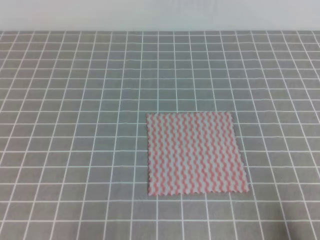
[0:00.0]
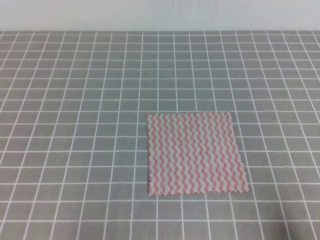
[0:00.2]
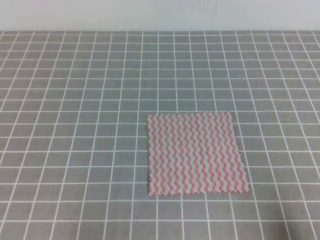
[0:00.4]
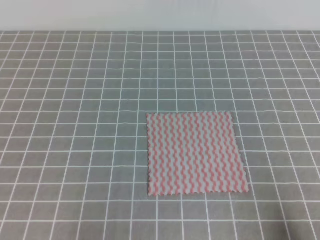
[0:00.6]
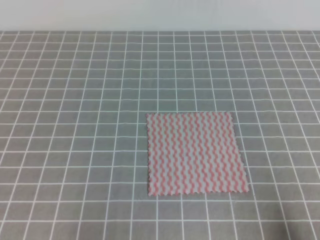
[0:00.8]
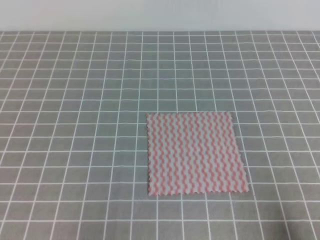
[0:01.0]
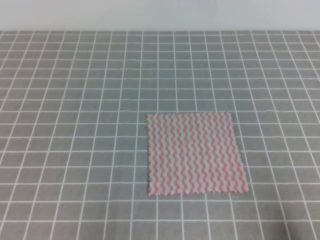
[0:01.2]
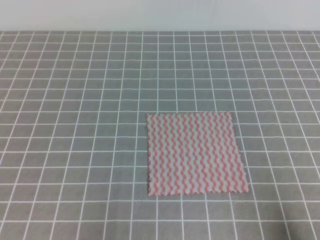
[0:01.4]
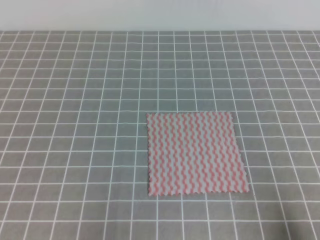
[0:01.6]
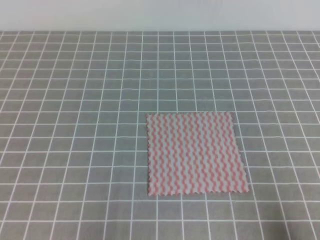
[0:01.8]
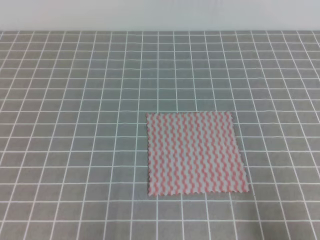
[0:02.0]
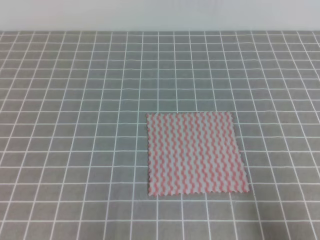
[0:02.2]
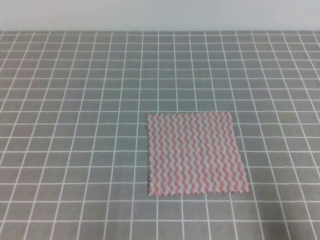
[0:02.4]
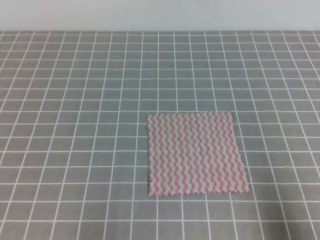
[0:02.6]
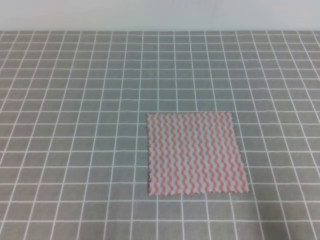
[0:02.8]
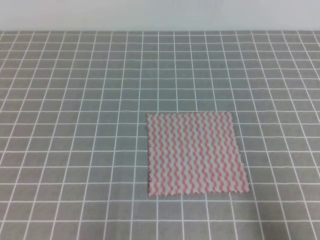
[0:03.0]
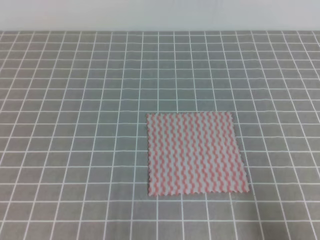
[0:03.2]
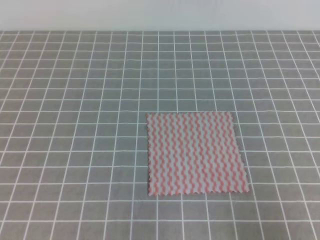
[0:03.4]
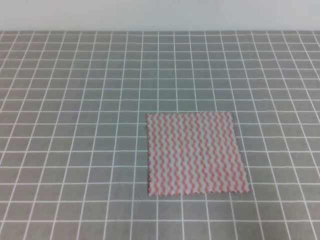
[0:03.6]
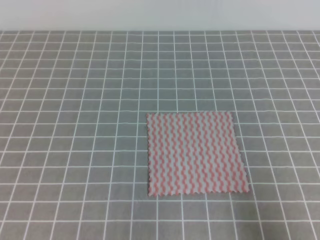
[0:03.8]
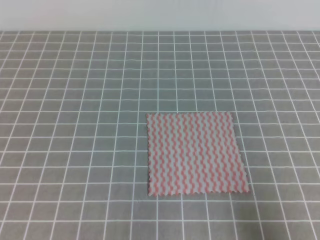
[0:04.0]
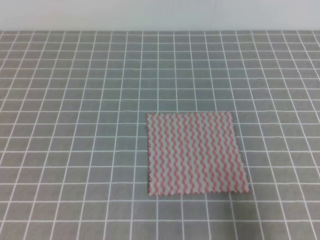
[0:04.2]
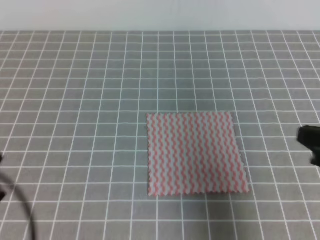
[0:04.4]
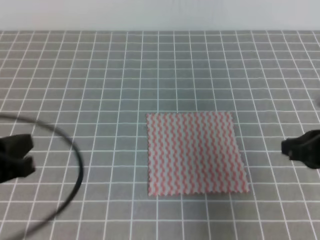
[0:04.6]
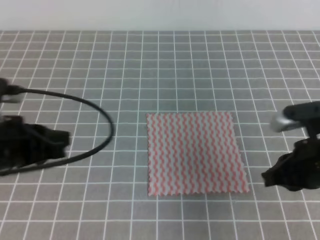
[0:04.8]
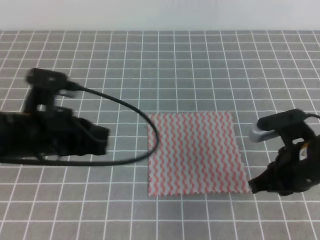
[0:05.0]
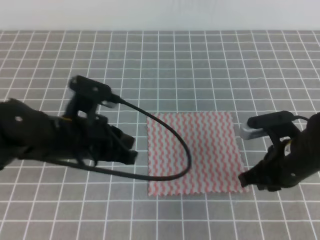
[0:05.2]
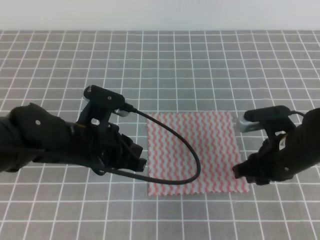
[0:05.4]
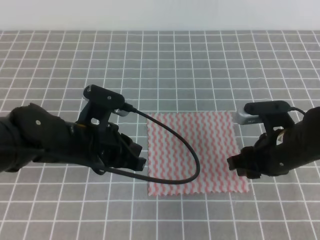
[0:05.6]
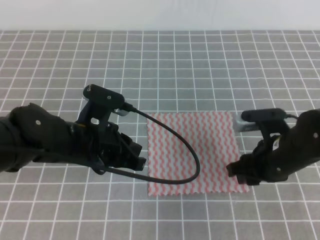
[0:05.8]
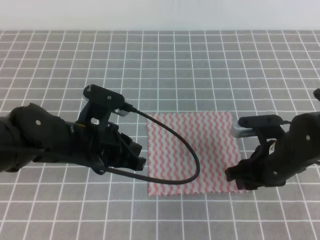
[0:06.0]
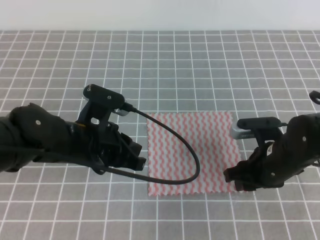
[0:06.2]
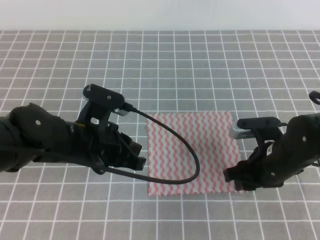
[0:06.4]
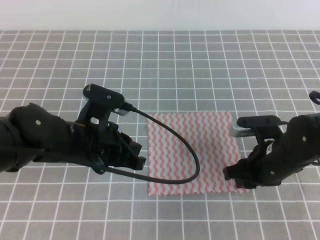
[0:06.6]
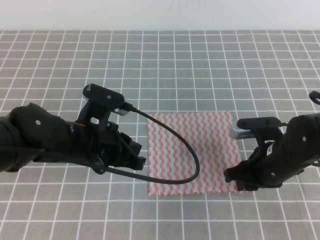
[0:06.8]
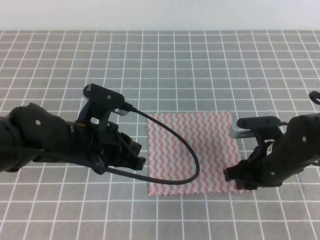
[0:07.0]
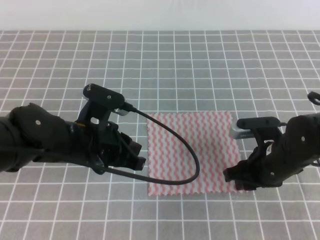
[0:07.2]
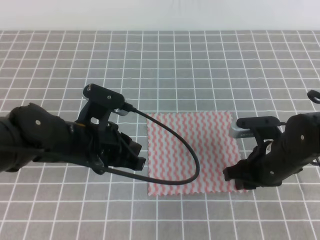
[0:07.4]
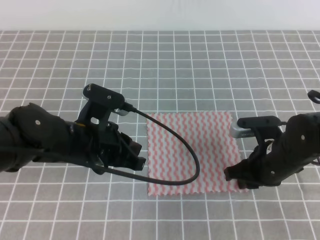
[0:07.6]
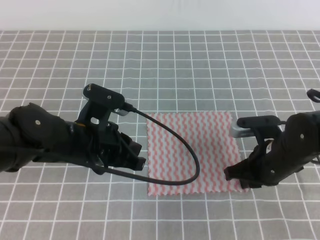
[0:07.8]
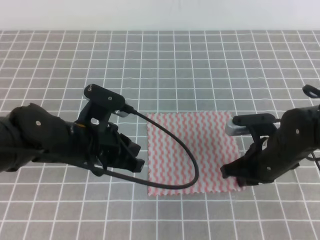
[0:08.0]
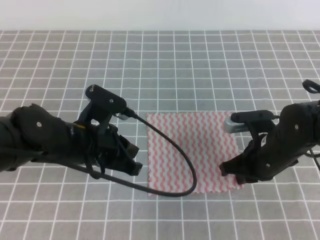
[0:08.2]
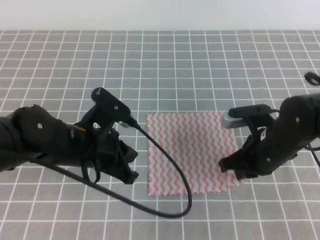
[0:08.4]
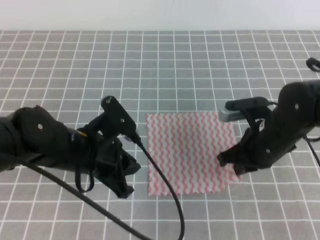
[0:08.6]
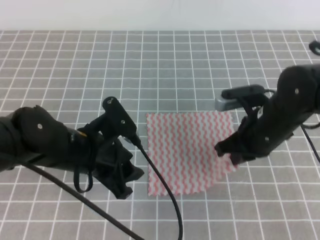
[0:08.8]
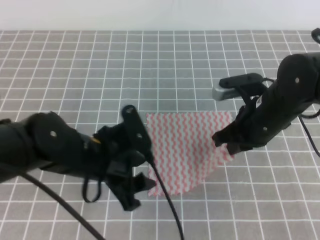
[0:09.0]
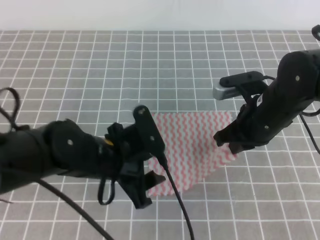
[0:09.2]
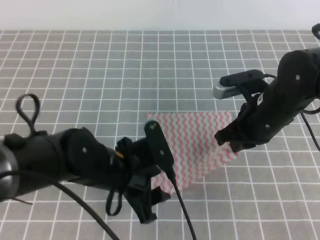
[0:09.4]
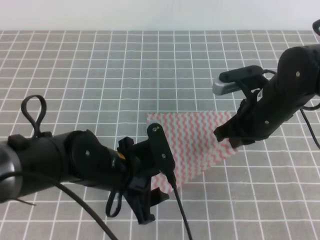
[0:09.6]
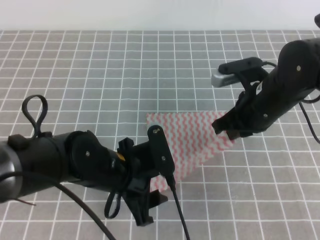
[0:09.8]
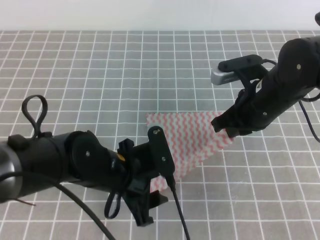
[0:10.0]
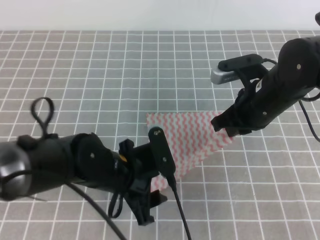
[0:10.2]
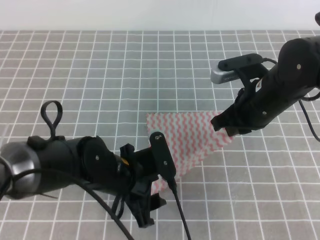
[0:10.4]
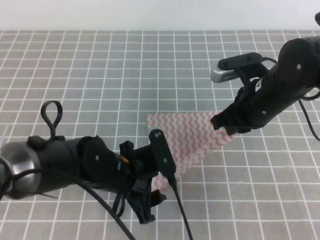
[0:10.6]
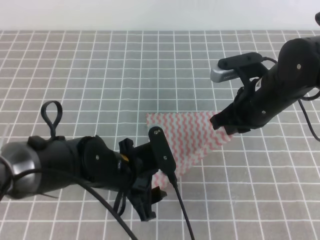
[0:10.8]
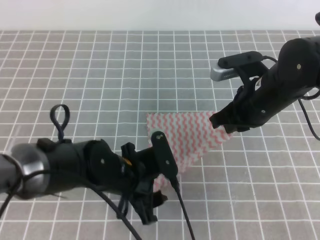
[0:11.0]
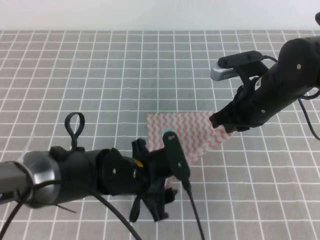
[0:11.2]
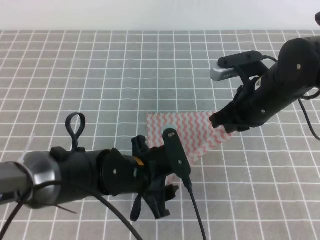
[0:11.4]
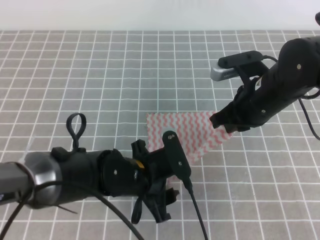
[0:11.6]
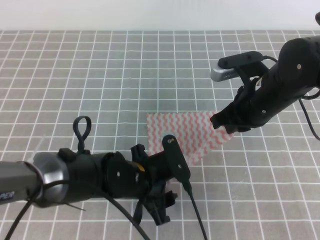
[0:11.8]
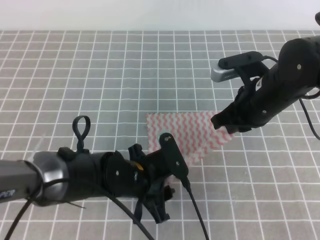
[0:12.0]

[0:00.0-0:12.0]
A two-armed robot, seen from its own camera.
0:03.0 to 0:04.4: The left gripper is displaced upward by roughly 10 cm, while the right gripper moves forward and upward, some 15 cm.
0:04.4 to 0:06.0: The left gripper shifts roughly 20 cm forward and to the right. Meanwhile the right gripper heads forward, downward and to the left, covering roughly 15 cm, and opens.
0:06.0 to 0:07.6: The right gripper closes up.
0:07.6 to 0:09.0: The right gripper goes some 5 cm upward, and closes up. Meanwhile the left gripper opens.
0:09.0 to 0:10.4: The left gripper shifts by approximately 5 cm.
0:10.4 to 0:12.0: The left gripper closes its fingers.

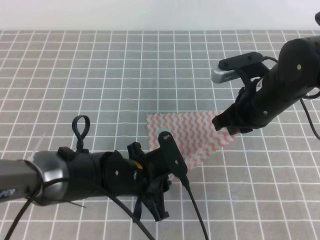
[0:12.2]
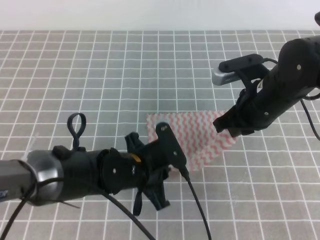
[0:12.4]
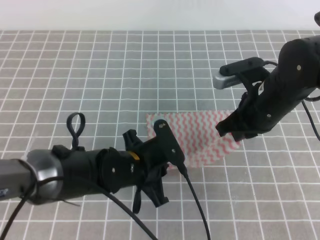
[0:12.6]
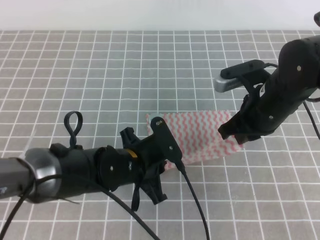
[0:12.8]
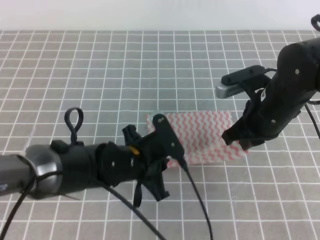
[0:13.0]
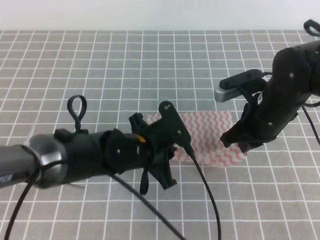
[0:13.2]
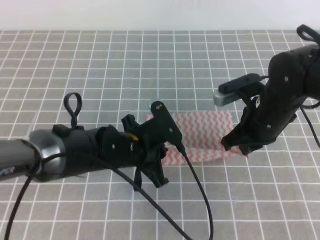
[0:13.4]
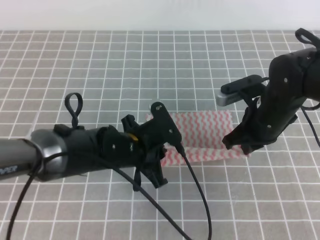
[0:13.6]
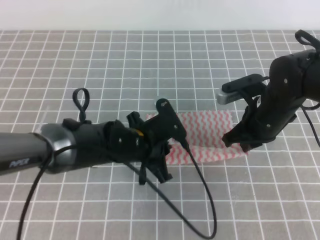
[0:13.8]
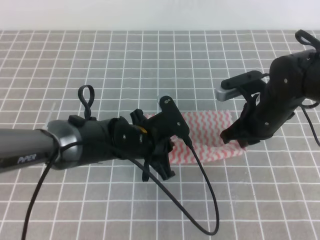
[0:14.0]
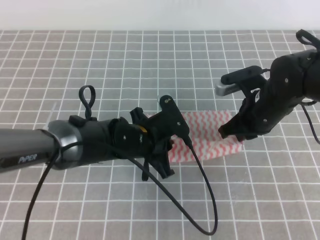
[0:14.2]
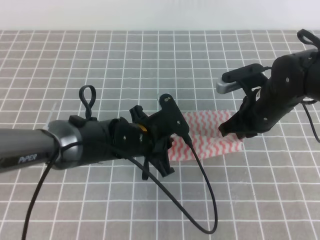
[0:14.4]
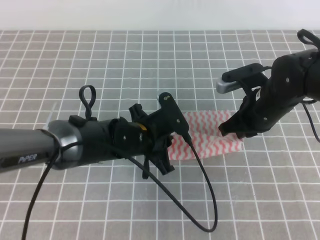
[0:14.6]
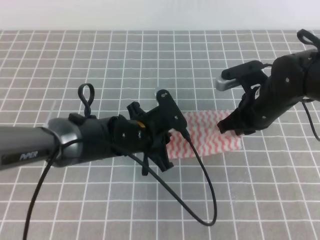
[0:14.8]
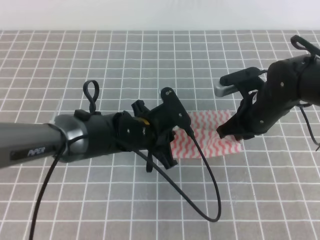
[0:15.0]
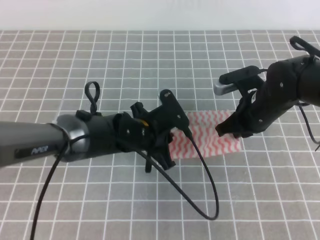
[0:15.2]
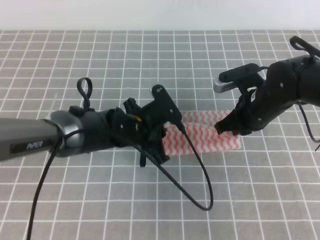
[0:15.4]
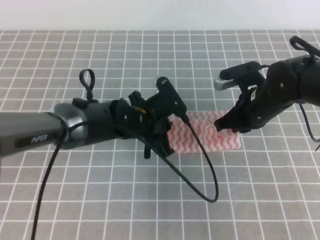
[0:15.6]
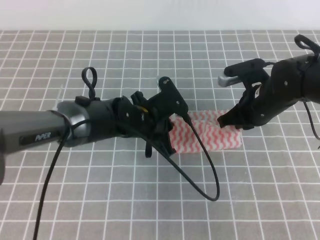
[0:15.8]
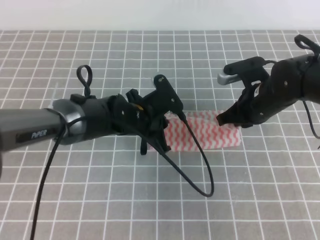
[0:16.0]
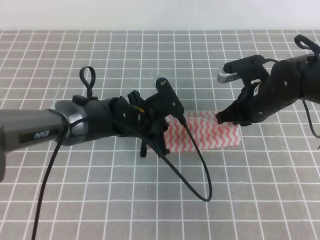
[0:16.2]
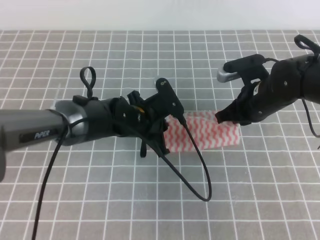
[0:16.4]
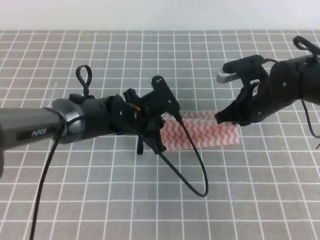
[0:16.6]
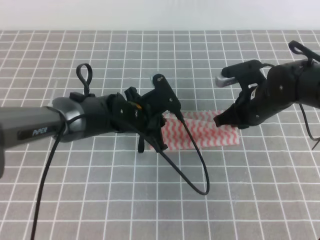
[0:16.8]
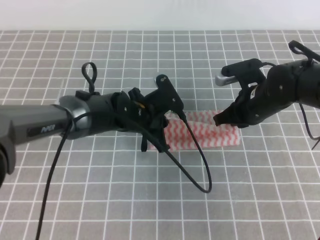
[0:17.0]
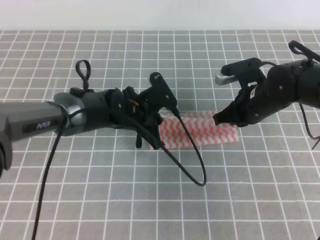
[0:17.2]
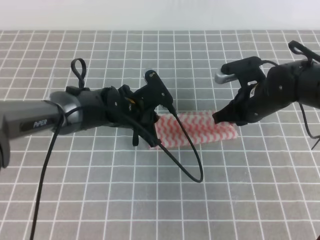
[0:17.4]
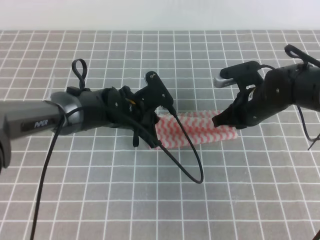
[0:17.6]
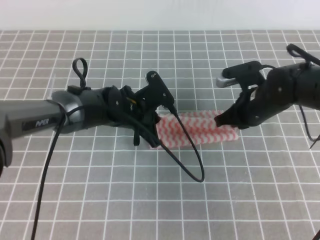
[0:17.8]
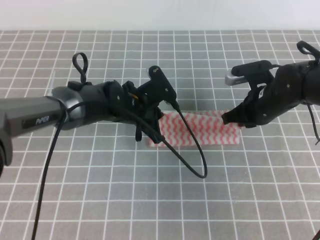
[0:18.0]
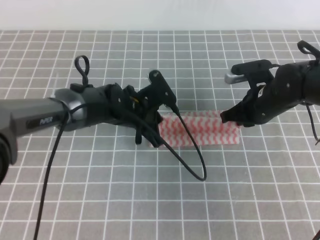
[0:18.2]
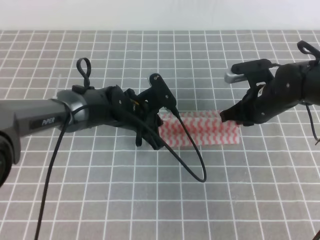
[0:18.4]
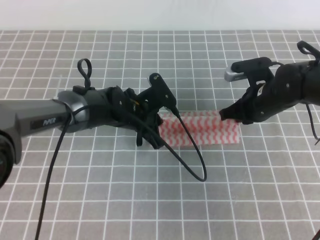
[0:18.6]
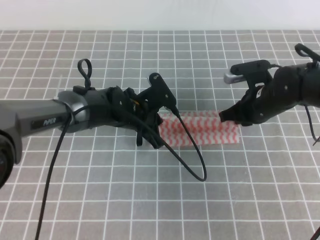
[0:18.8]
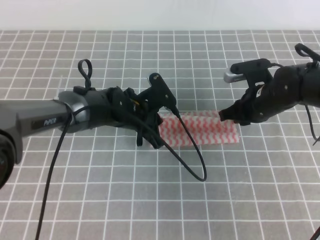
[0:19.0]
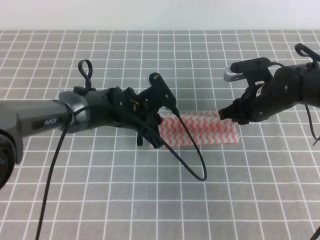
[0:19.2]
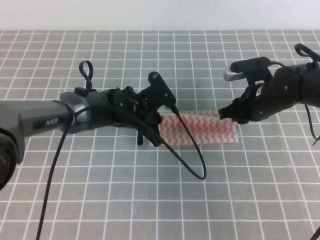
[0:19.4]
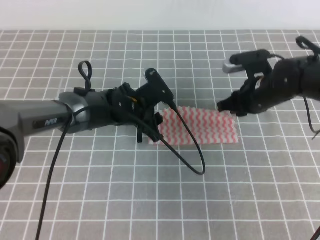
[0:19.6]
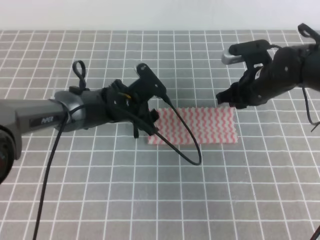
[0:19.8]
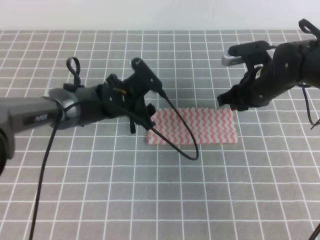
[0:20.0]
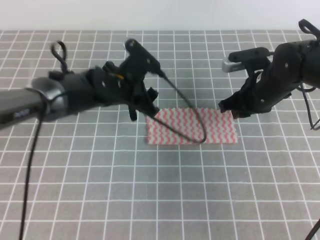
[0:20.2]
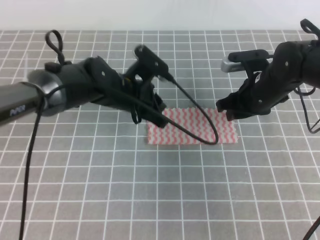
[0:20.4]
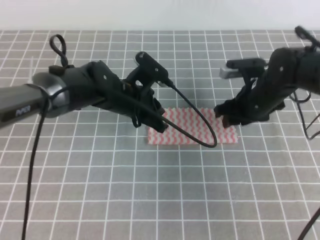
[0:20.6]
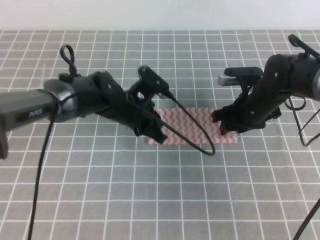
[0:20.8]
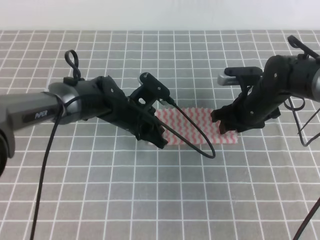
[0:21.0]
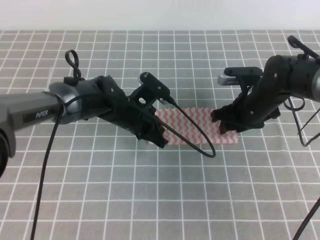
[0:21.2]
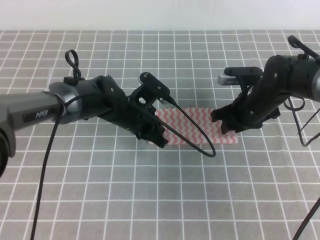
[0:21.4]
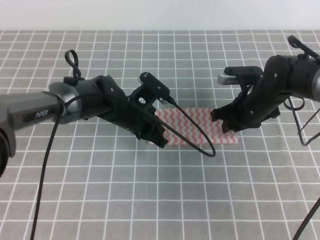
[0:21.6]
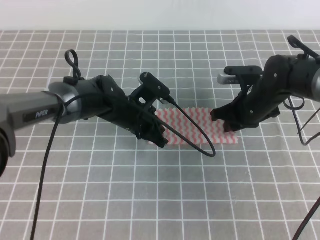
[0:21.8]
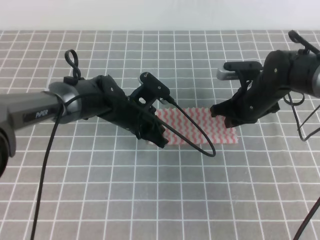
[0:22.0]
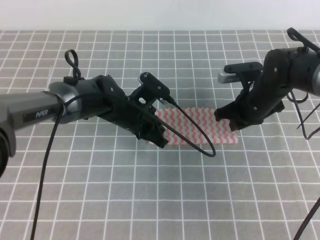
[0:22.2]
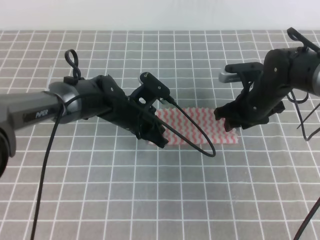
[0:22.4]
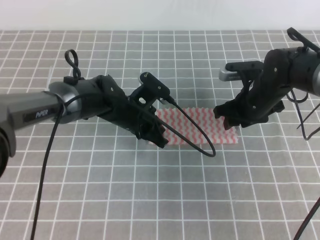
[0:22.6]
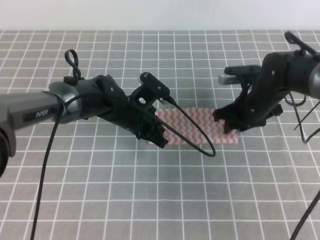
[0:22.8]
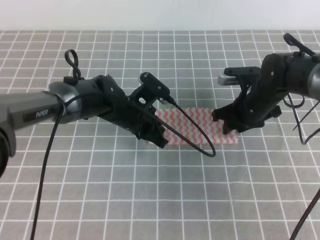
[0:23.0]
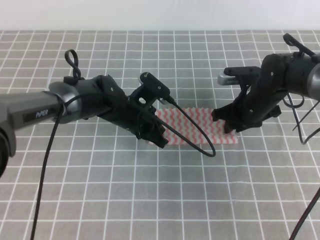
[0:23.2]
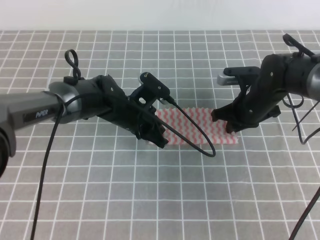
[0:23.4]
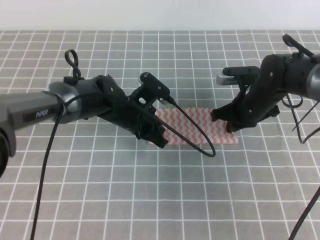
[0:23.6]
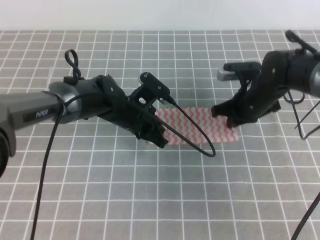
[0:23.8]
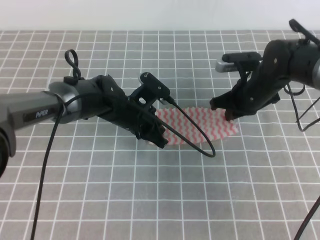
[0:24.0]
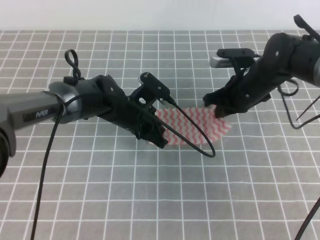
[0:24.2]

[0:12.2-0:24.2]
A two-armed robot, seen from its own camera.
0:12.2 to 0:13.8: The left gripper changes place by approximately 5 cm.
0:13.8 to 0:16.6: The grippers make only small movements.
0:16.6 to 0:18.2: The grippers stay close to where they were, moving slightly.
0:18.2 to 0:19.8: The right gripper opens up, while the left gripper opens.
0:19.8 to 0:21.2: The right gripper opens up. The left gripper closes up.
0:21.2 to 0:22.6: The right gripper closes, then reopens.
0:22.6 to 0:24.2: The right gripper closes.
